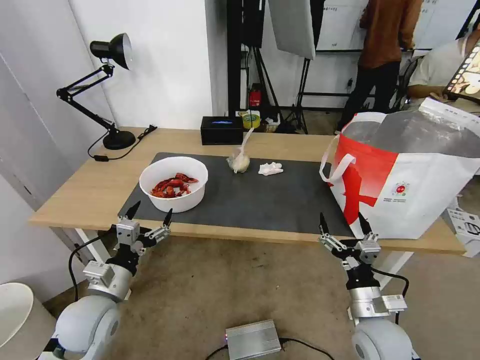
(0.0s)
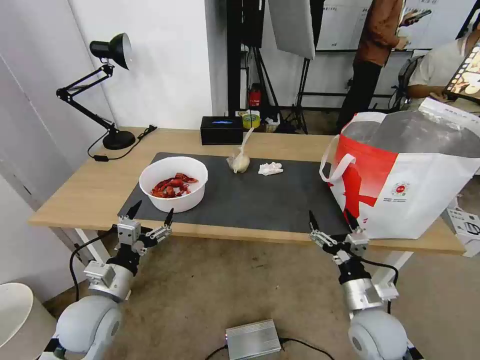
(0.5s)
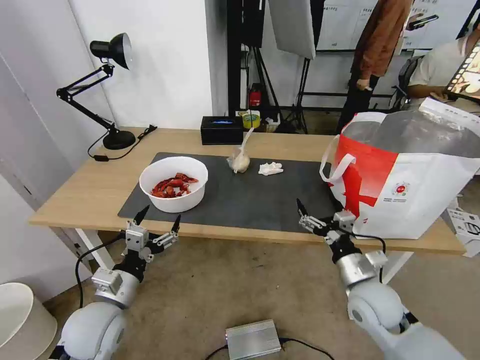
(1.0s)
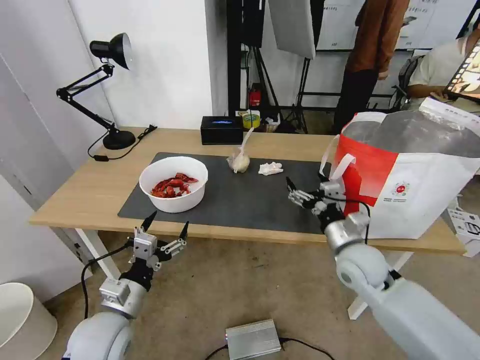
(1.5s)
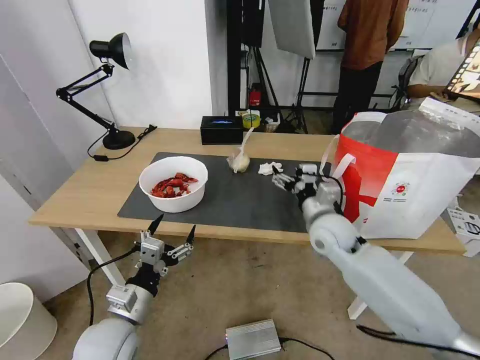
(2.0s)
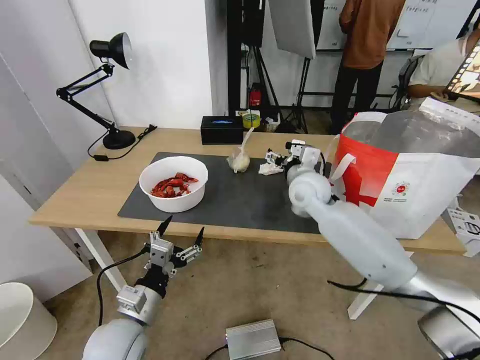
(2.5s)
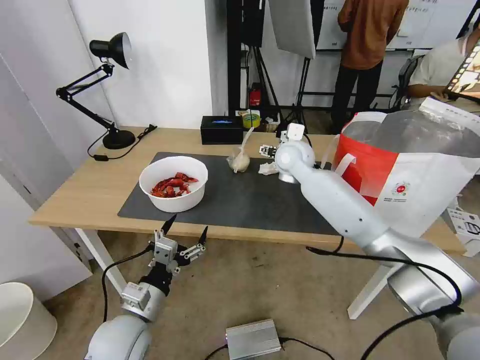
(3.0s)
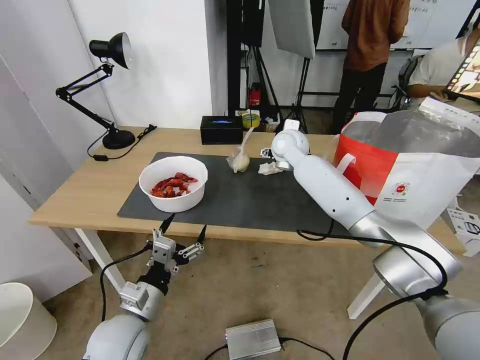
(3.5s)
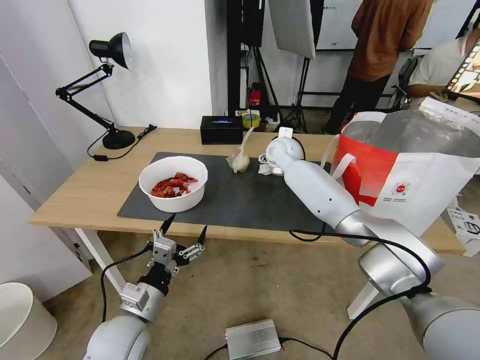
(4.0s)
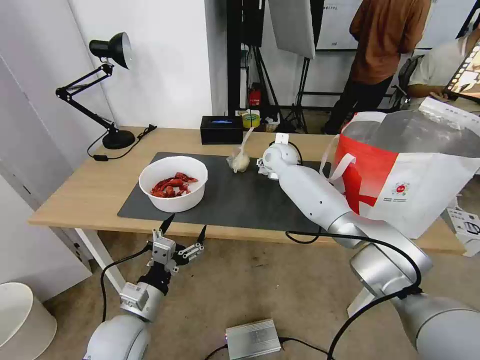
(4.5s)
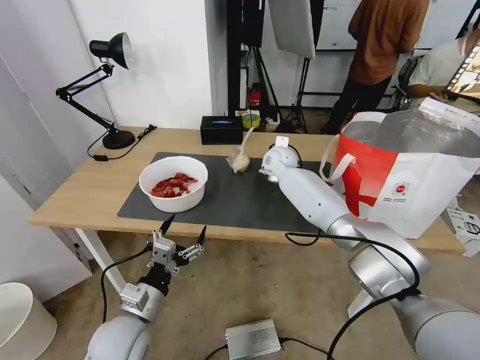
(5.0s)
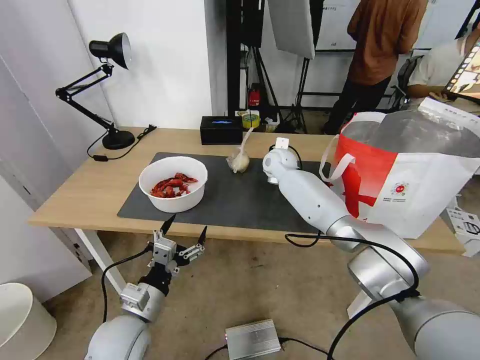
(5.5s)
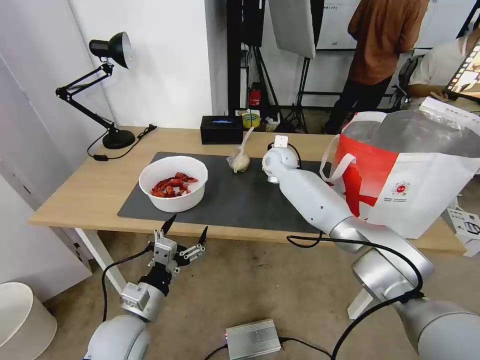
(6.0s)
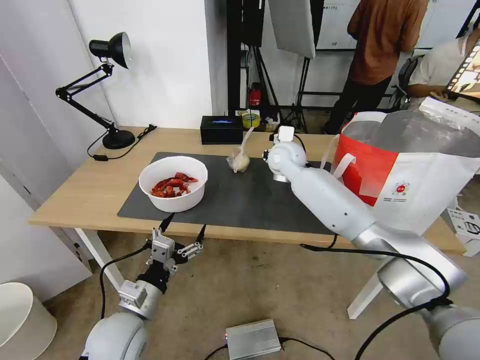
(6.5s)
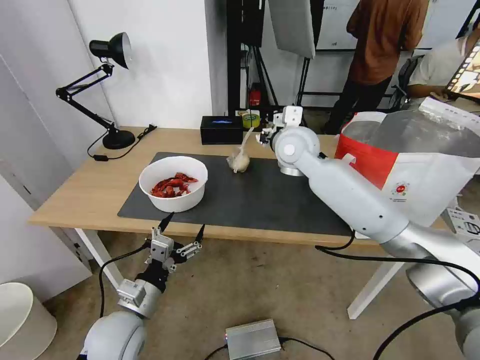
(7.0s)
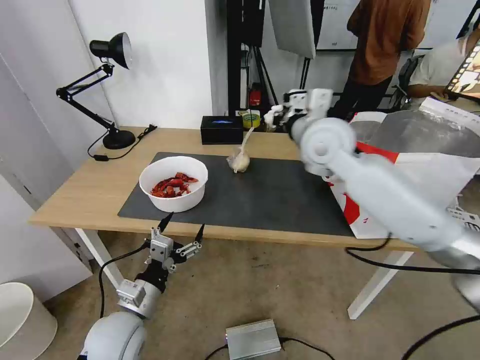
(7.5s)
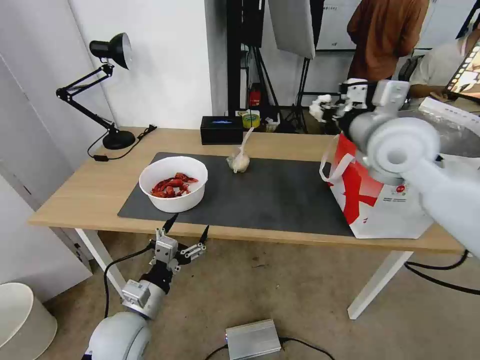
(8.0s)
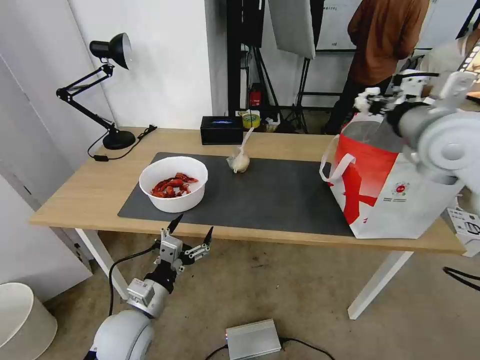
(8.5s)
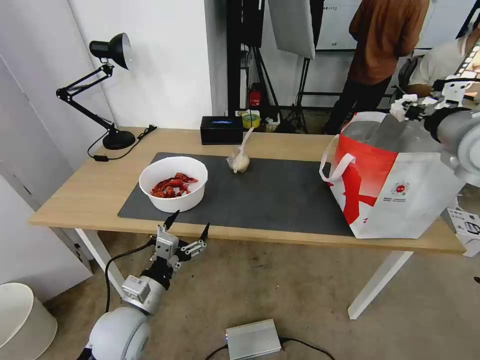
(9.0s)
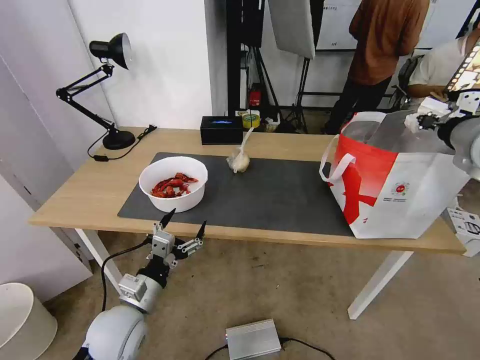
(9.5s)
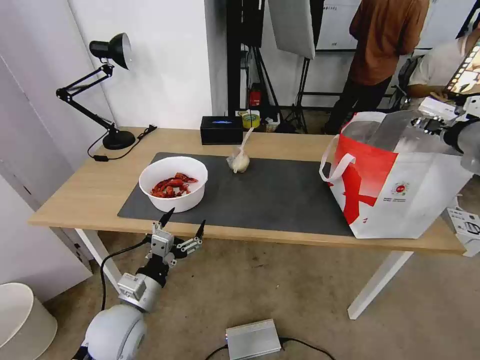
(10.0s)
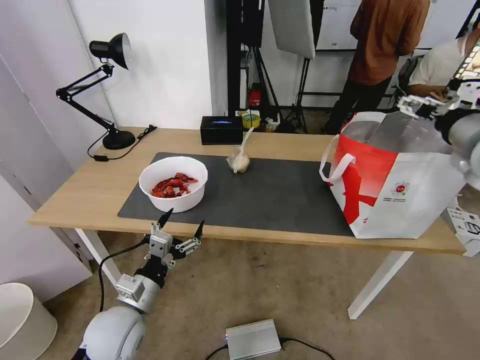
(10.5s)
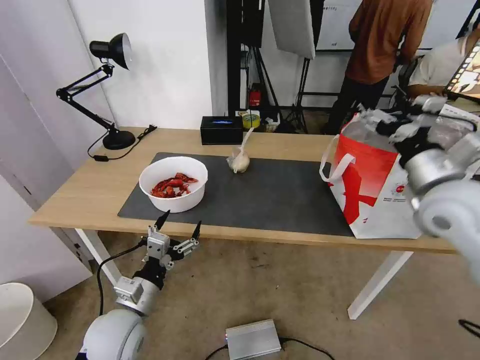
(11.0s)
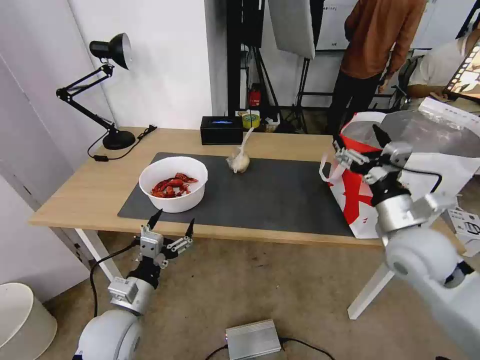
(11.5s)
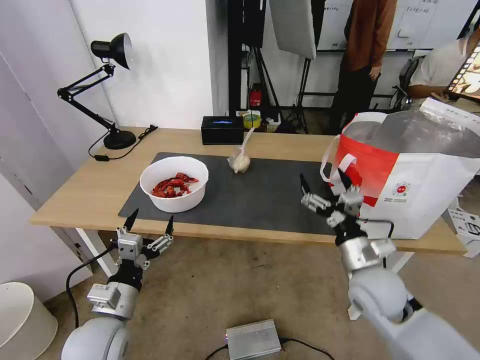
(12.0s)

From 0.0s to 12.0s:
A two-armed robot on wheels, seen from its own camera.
Task of the whole recording: Pick up the trash from the table and place it into the takeout bag.
From 0.0s to 2.0s: The left gripper changes place by about 5 cm, while the right gripper heads forward and upward, covering some 20 cm.
From 2.0s to 4.0s: The right gripper shifts approximately 20 cm forward.
From 4.0s to 6.0s: The right gripper closes.
From 6.0s to 8.0s: The right gripper moves backward, upward and to the right, roughly 30 cm.
From 8.0s to 10.0s: The right gripper is displaced to the right by approximately 15 cm, and opens.
From 10.0s to 12.0s: The right gripper shifts some 30 cm downward and to the left, and opens.

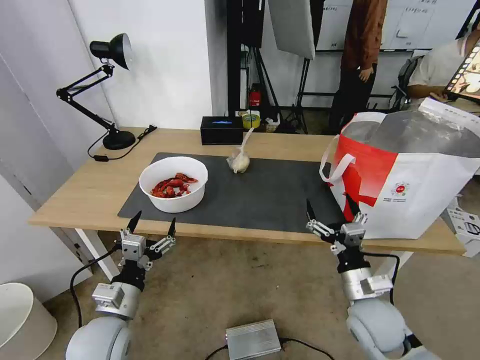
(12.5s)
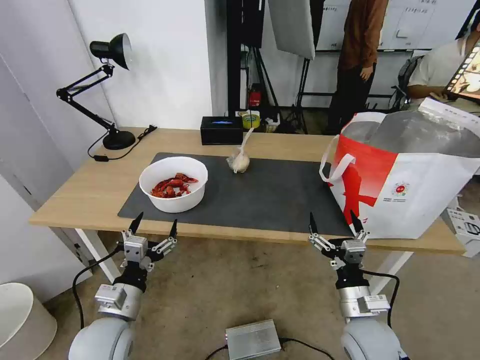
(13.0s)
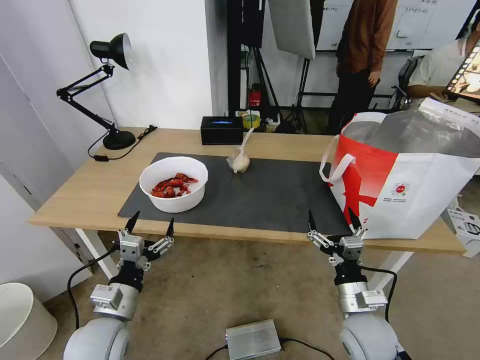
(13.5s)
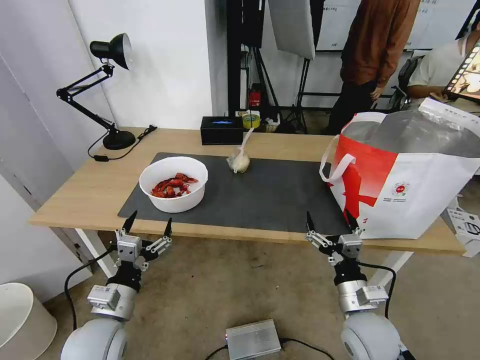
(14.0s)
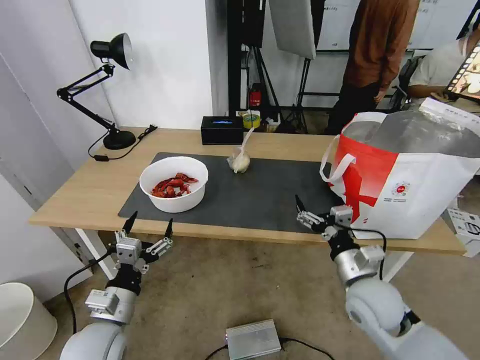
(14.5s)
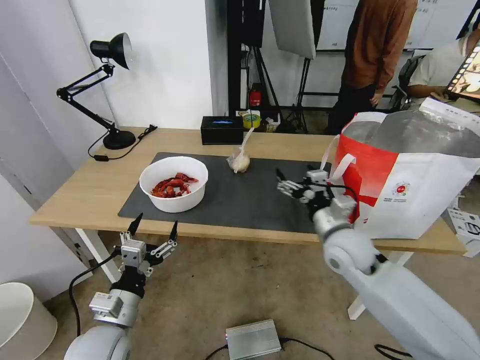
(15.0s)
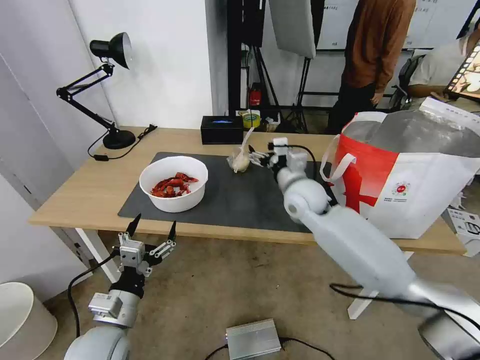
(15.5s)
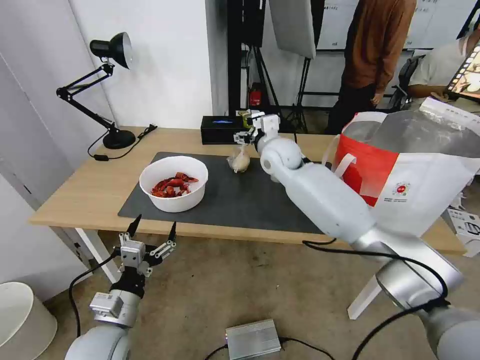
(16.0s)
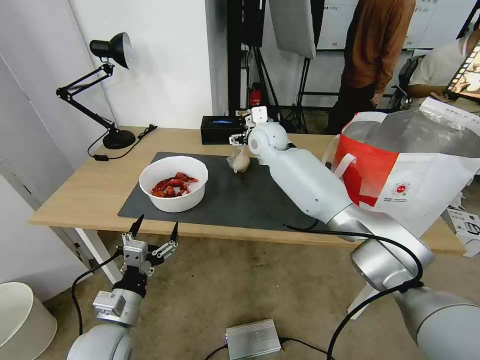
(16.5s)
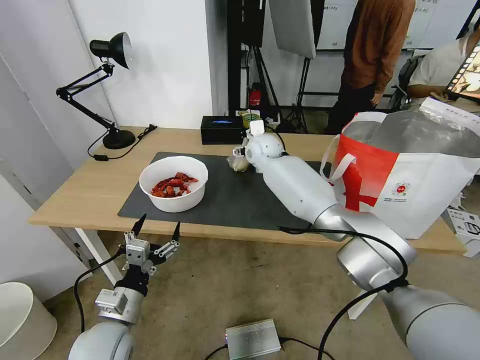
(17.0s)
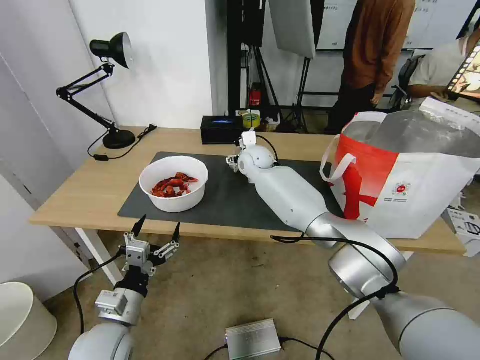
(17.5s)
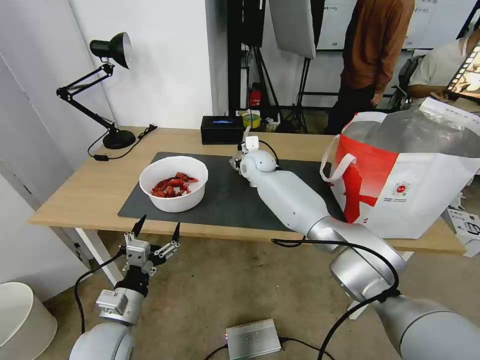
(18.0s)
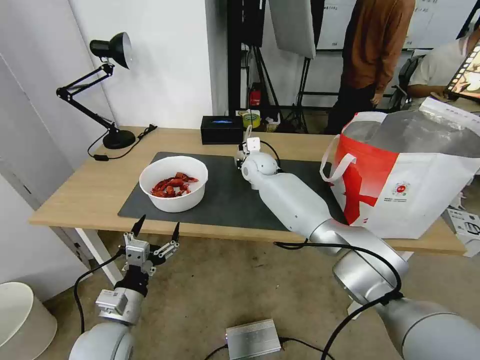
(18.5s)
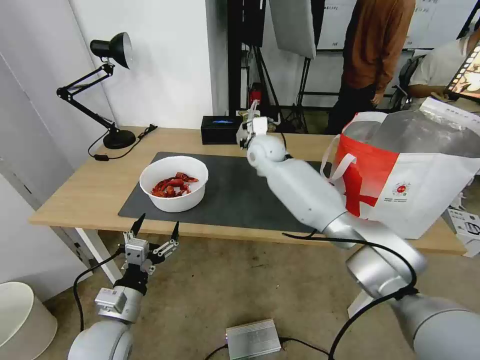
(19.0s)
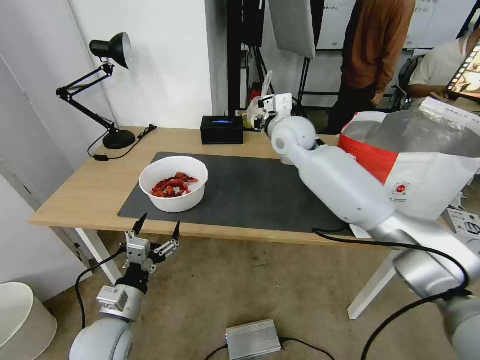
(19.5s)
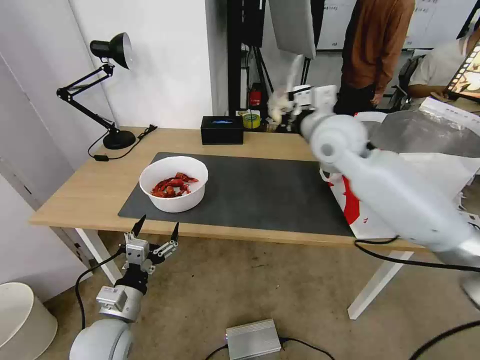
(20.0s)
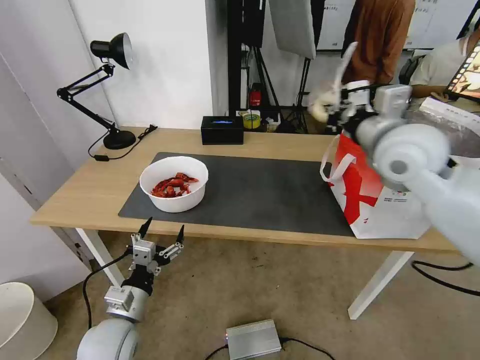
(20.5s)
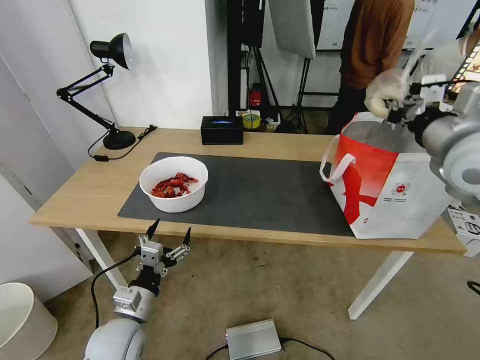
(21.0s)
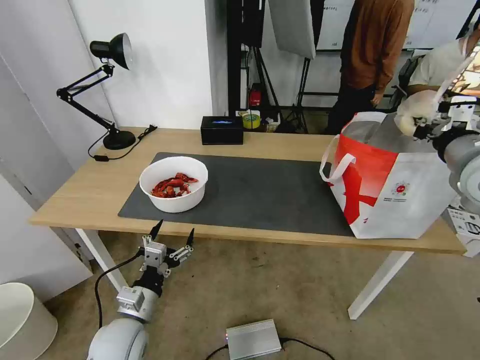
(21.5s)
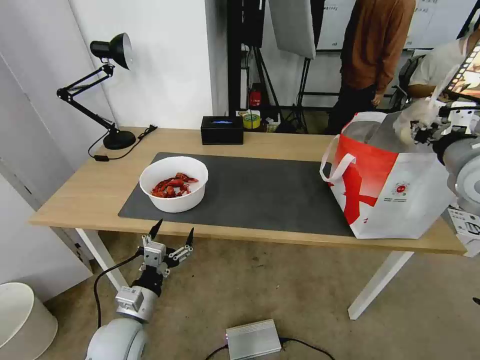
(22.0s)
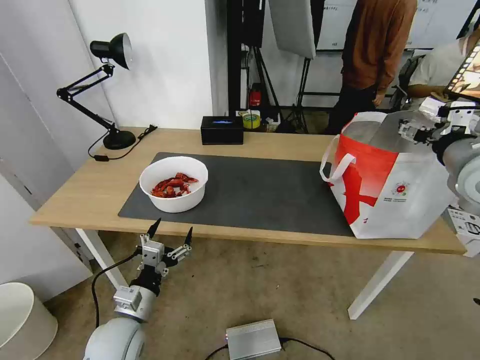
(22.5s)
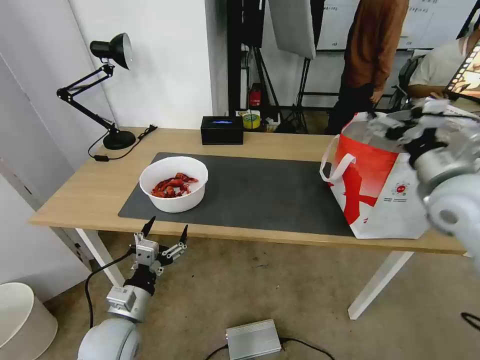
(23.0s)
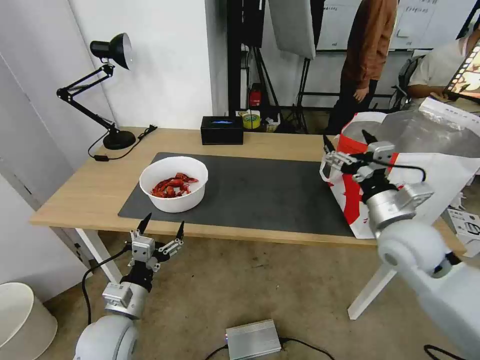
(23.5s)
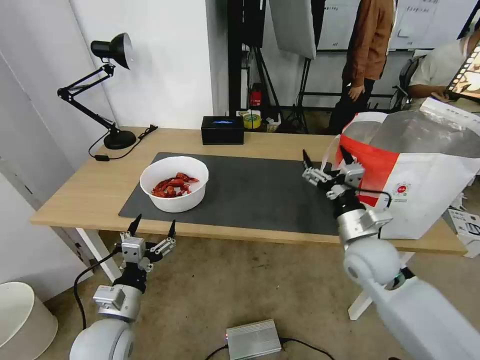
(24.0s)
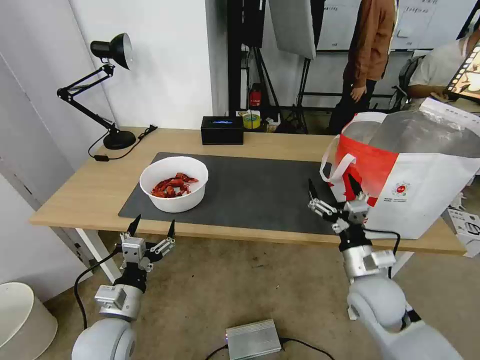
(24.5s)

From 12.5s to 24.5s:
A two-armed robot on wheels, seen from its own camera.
Task of the whole recording: Pick up the trash from the table and place it into the takeout bag.
From 12.5s to 14.5s: The right gripper shifts by some 5 cm.
From 14.5s to 16.5s: The right gripper moves forward, to the left and upward, about 40 cm.
From 16.5s to 18.5s: The right gripper shifts about 10 cm downward, and closes.
From 18.5s to 20.5s: The right gripper goes roughly 35 cm to the right, backward and upward.
From 20.5s to 22.5s: The right gripper moves to the right, about 15 cm, and opens.
From 22.5s to 24.5s: The right gripper goes about 30 cm downward and to the left.

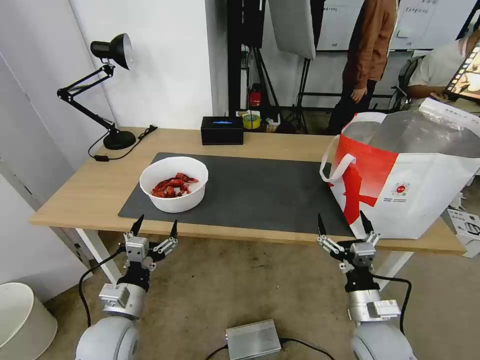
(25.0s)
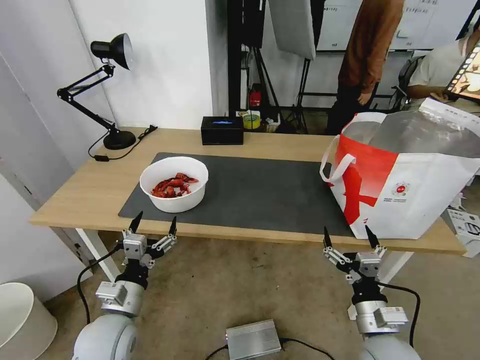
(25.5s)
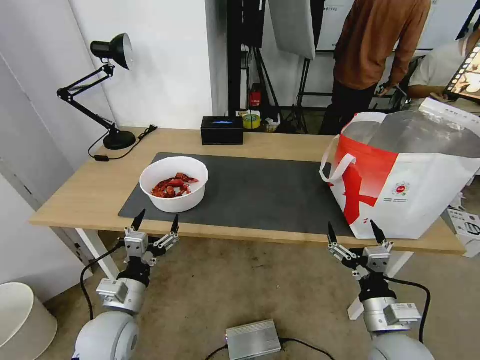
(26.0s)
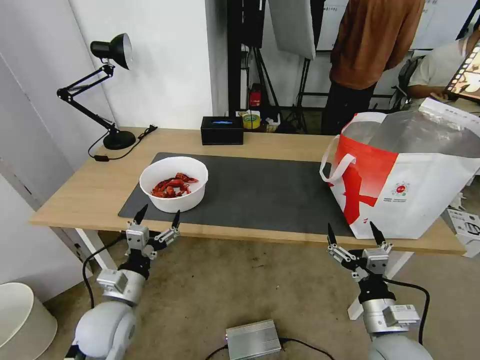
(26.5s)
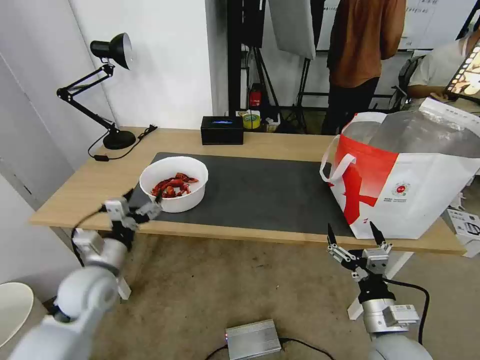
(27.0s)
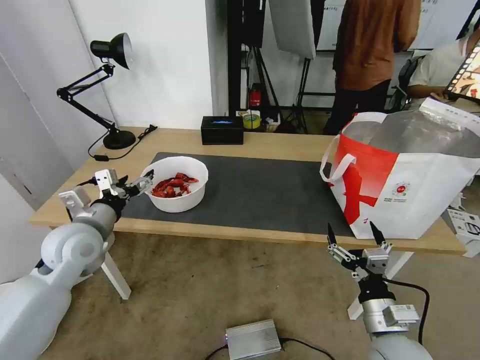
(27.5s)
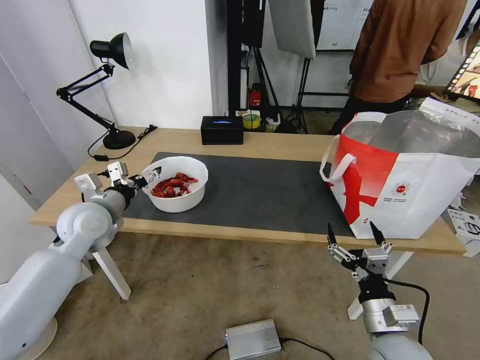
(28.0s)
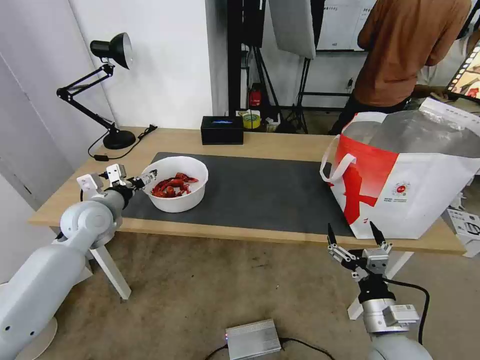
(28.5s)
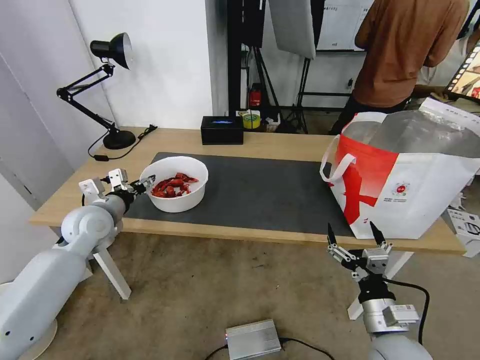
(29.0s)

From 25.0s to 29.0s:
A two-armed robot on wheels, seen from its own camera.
Task of the whole recording: Pick up the trash from the table and place it into the takeout bag.
From 25.0s to 27.0s: The left gripper is displaced forward, upward and to the left by some 10 cm.
From 27.0s to 29.0s: The left gripper moves forward, some 10 cm.
